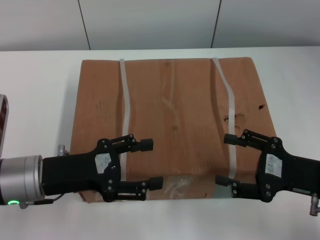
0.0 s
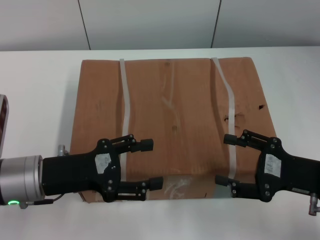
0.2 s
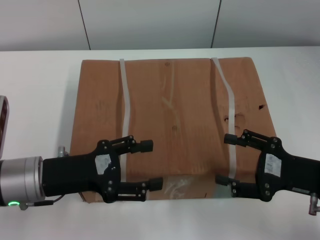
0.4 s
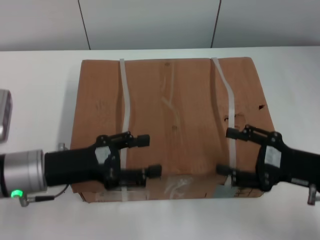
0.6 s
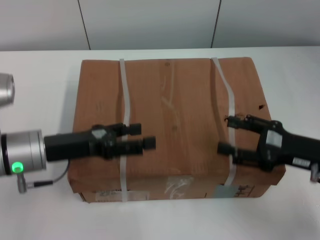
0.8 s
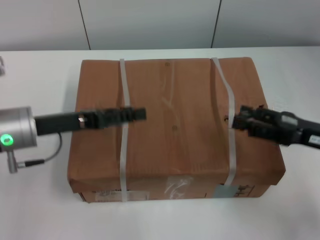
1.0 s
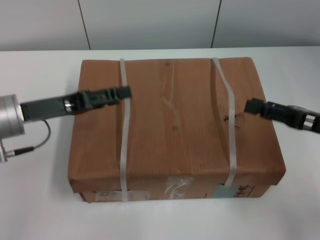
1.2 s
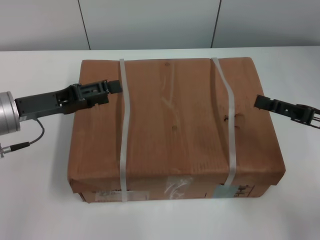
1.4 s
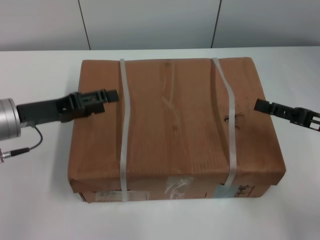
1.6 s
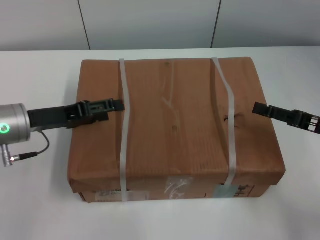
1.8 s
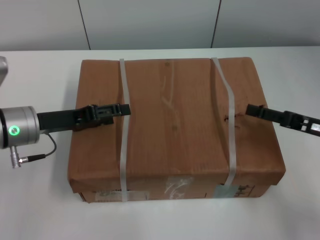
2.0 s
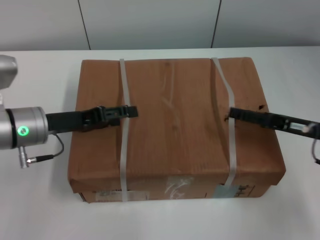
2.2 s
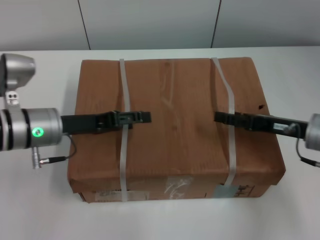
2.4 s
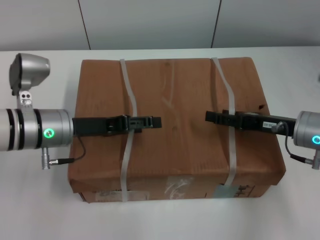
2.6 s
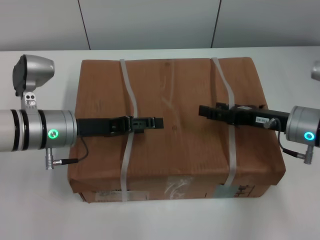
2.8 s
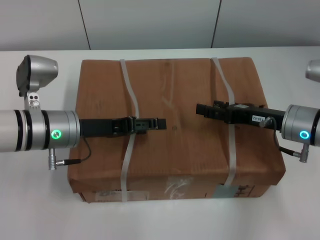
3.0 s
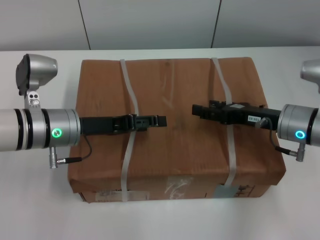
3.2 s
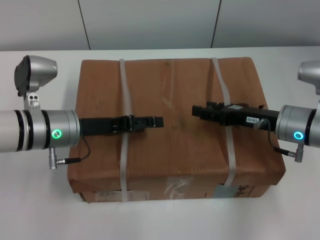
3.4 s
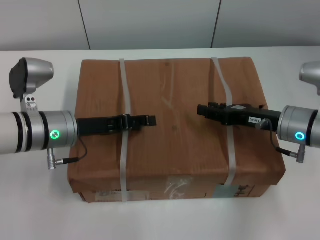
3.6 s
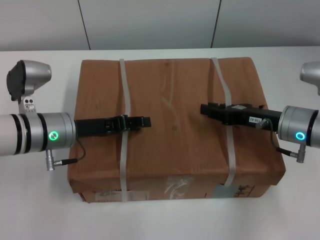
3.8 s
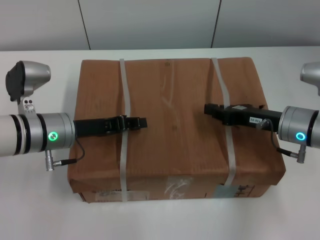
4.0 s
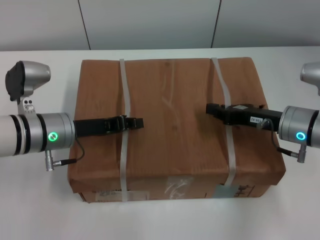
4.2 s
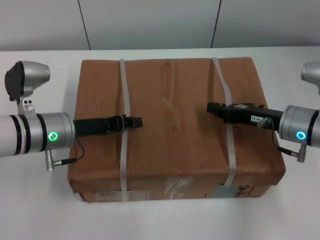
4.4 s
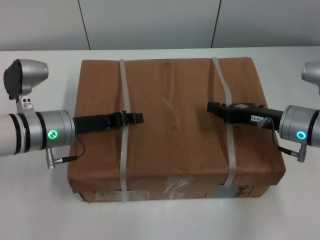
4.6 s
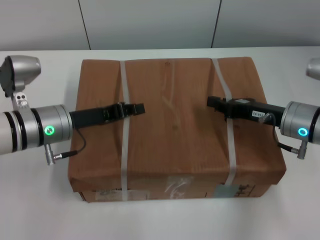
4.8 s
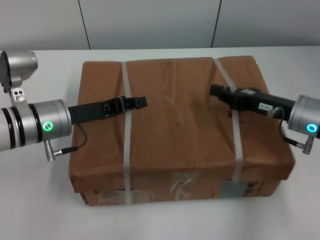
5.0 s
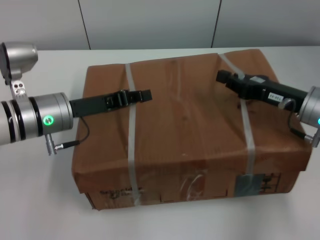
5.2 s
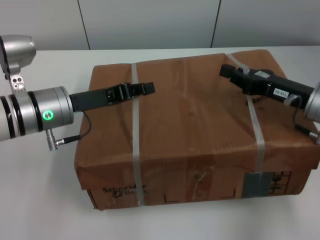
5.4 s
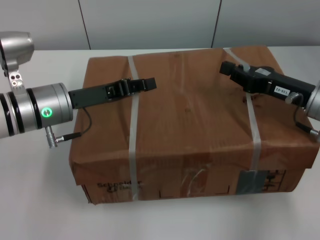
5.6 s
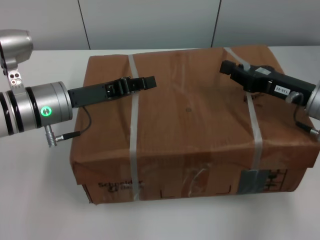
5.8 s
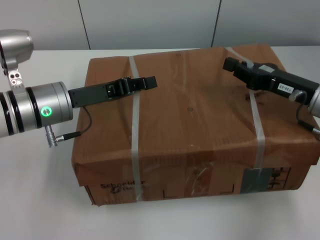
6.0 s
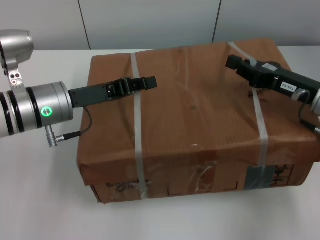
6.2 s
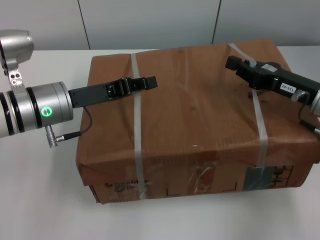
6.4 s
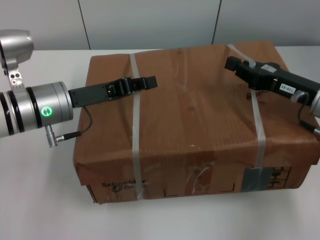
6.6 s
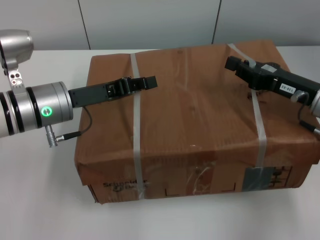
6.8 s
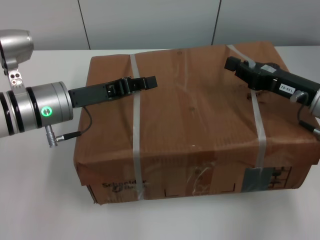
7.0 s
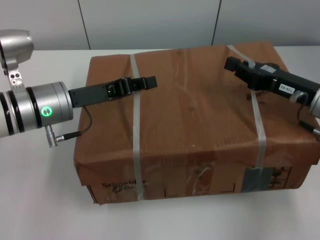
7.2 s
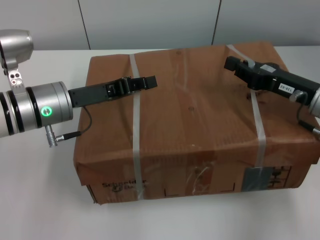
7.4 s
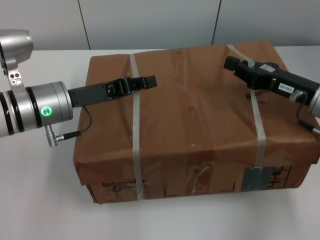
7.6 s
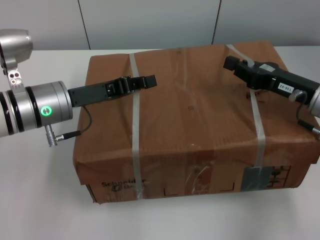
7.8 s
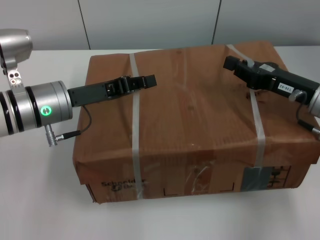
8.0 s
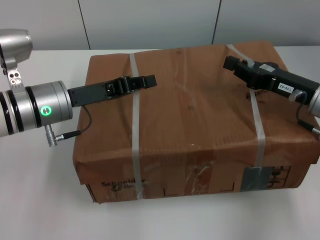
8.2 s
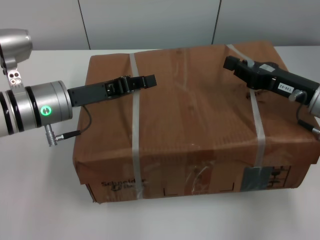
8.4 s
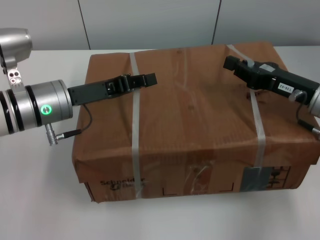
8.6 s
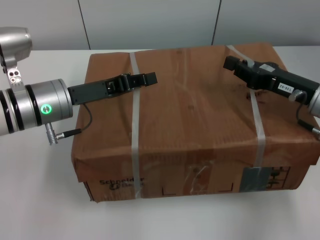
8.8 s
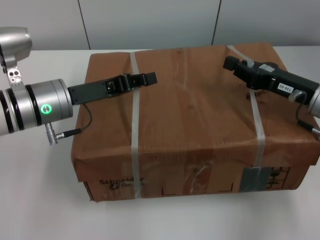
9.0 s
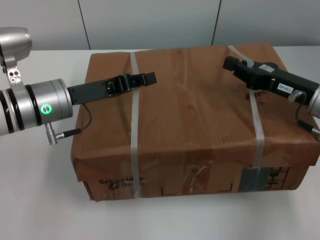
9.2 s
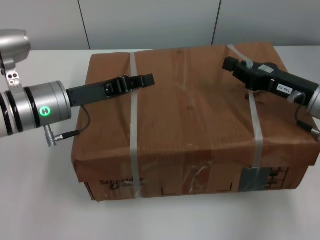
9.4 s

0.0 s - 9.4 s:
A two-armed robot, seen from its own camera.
Task of the whole recording: pick up the box from the table with both arms.
Step, 0.0 s - 4.2 s: Grasp the bandage with left gripper.
Step, 0.0 s - 4.2 s: Grasp the bandage with right gripper.
Step, 4.4 s - 5.6 s: Lift the box with left gripper.
Step, 4.4 s - 5.6 s: Lift the box with right gripper.
0.0 s - 1.6 s: The left gripper shifts about 5 cm forward. Meanwhile the right gripper is displaced to the right by about 5 cm.
1.6 s - 3.2 s: The left gripper moves to the right, about 10 cm, while the right gripper moves to the left and forward, about 10 cm.
3.2 s - 4.8 s: The left gripper closes up. Meanwhile the right gripper closes up.
6.2 s - 9.4 s: The two grippers keep their place.
